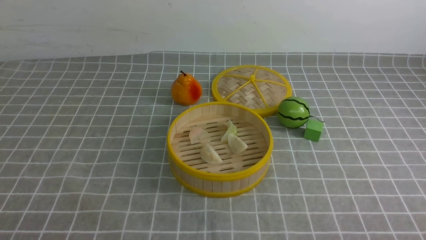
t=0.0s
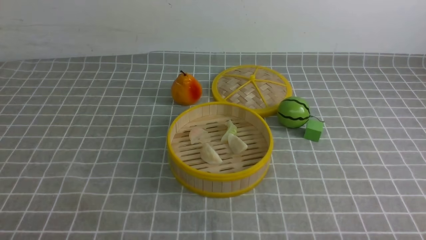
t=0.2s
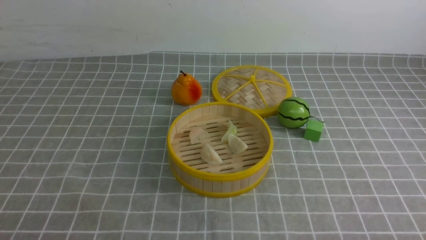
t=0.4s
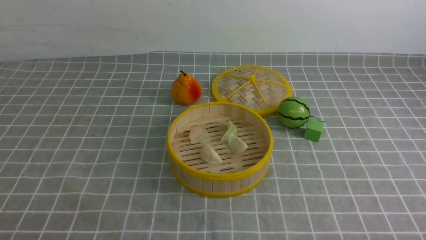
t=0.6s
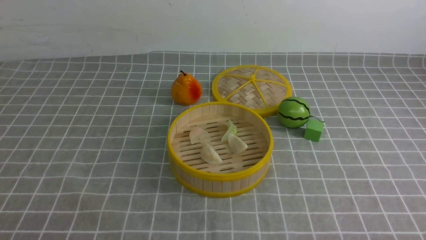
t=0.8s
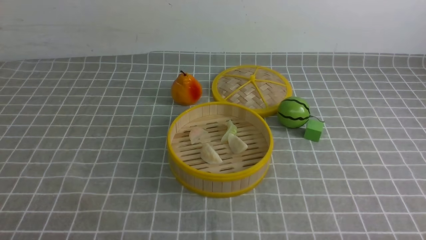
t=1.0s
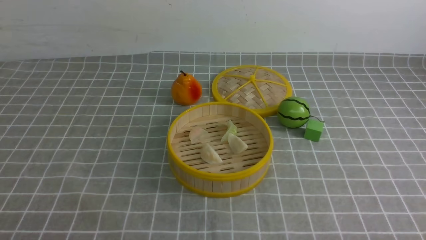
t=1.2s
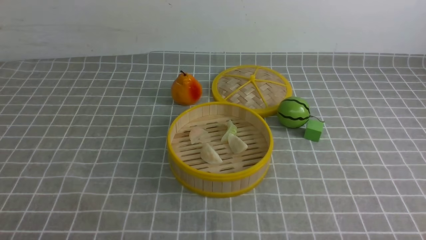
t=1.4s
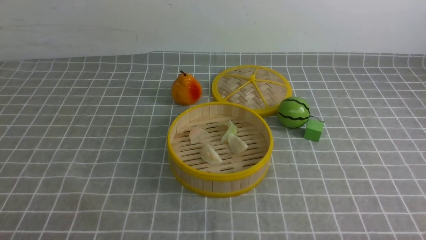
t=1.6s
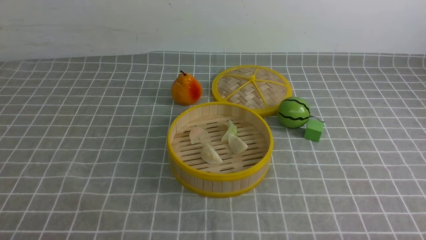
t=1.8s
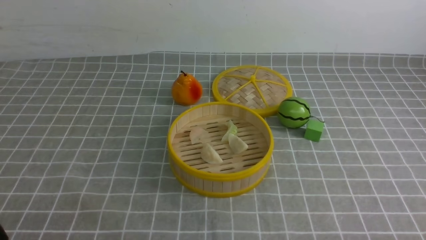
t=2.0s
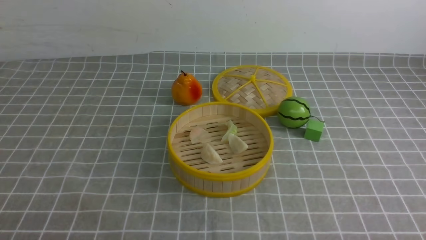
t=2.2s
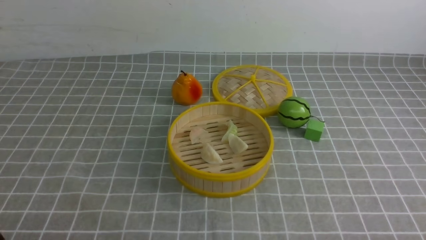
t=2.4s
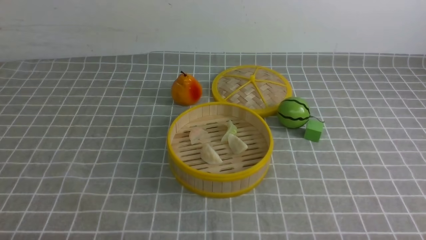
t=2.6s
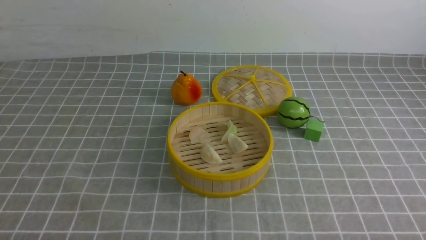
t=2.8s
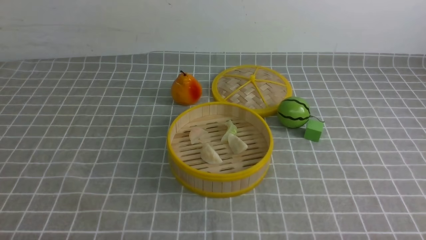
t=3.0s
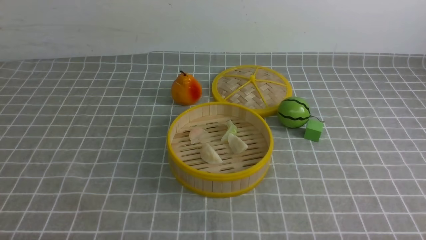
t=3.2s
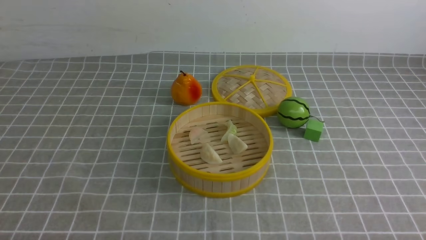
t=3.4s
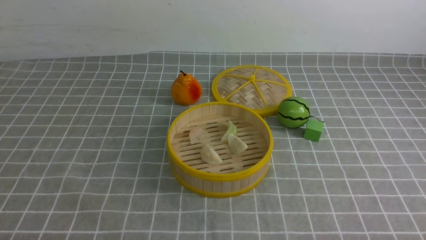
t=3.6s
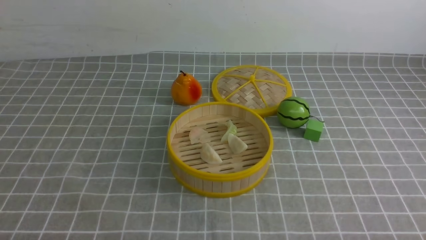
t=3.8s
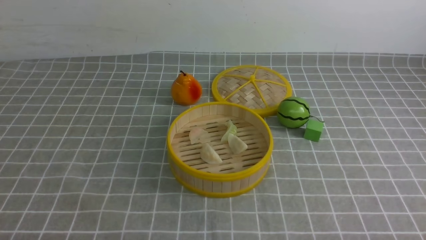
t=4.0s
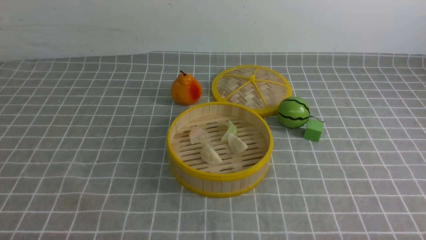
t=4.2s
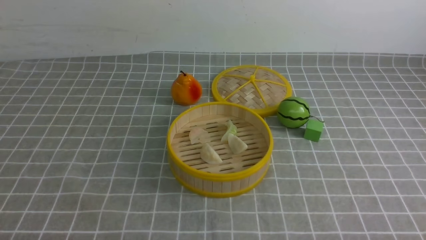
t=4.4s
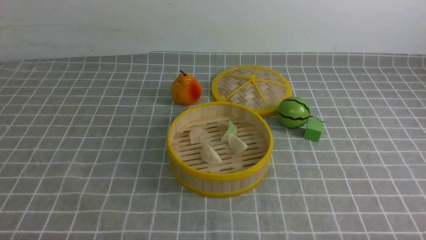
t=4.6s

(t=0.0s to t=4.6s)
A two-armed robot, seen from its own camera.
Task of the whole recording: put the dumplings into the steamer on the table with the grey tablecloth.
t=3.0s - t=4.6s: Neither gripper changes place.

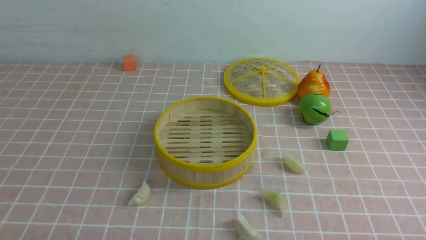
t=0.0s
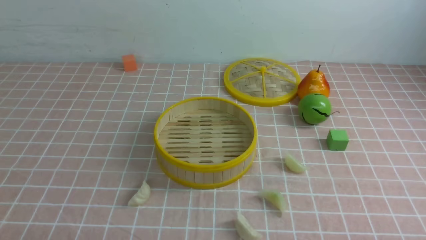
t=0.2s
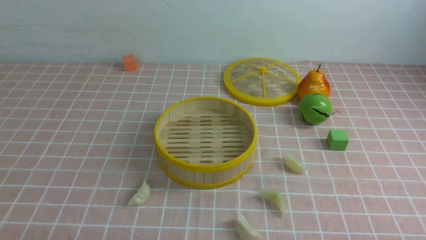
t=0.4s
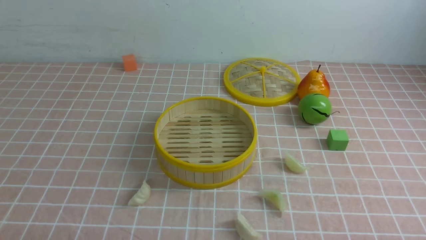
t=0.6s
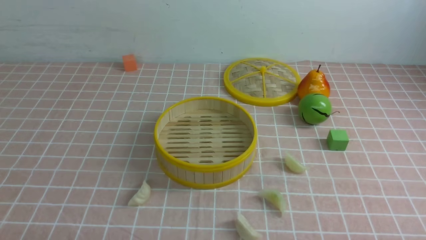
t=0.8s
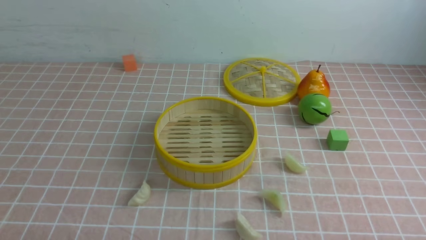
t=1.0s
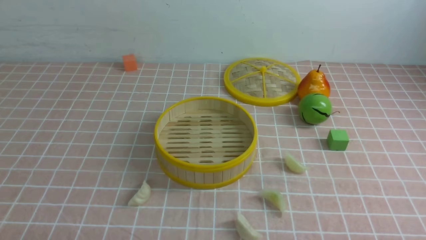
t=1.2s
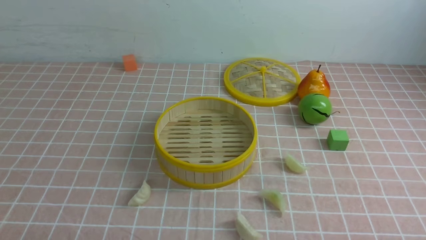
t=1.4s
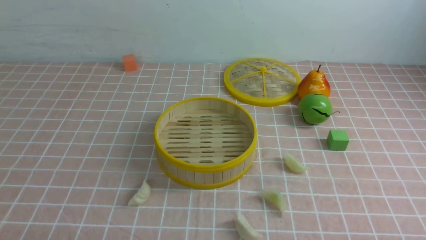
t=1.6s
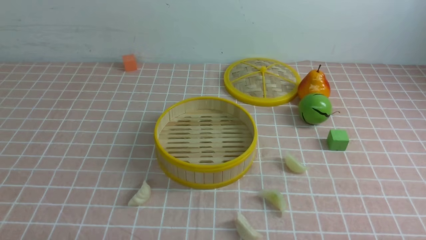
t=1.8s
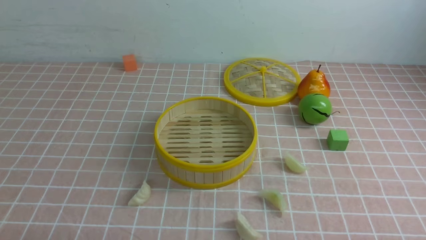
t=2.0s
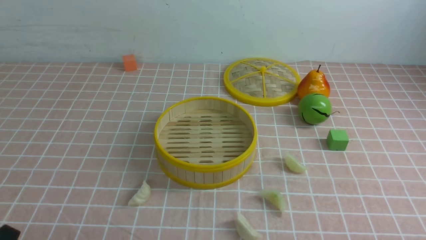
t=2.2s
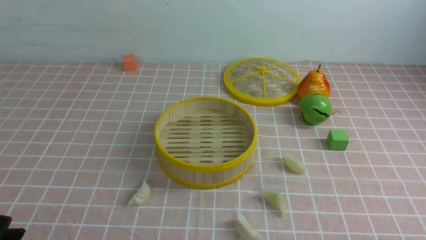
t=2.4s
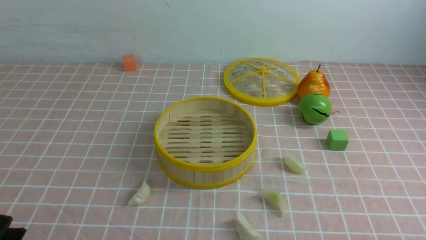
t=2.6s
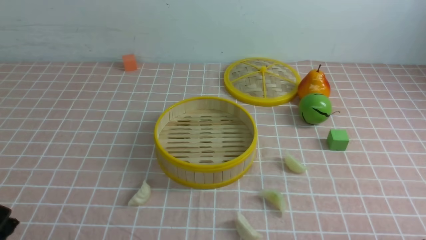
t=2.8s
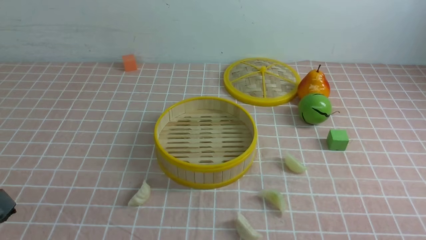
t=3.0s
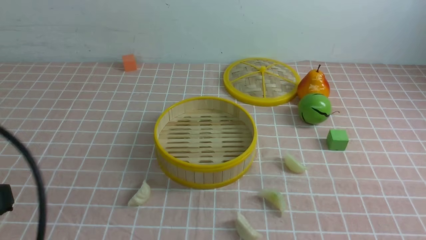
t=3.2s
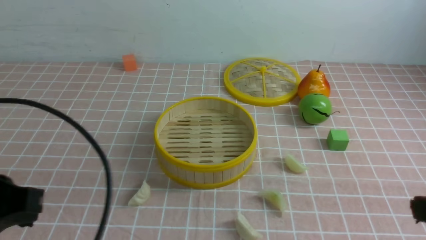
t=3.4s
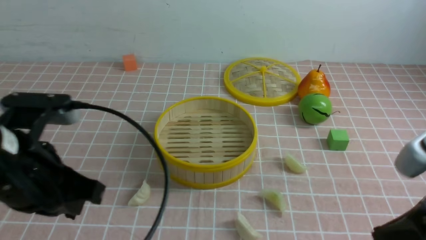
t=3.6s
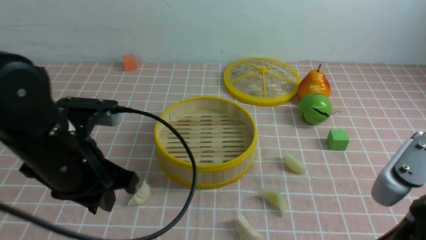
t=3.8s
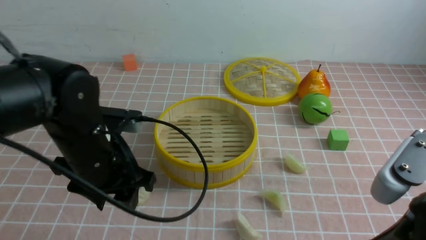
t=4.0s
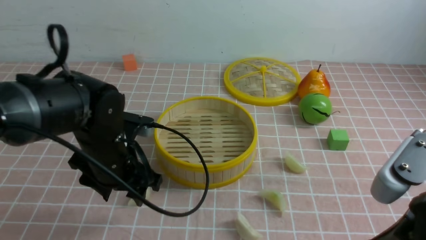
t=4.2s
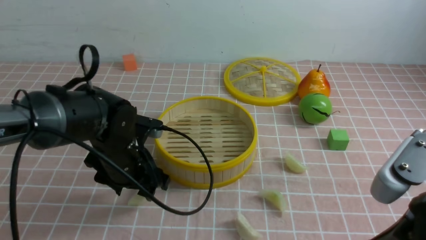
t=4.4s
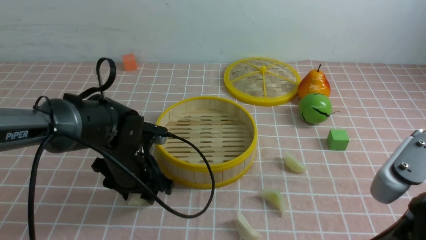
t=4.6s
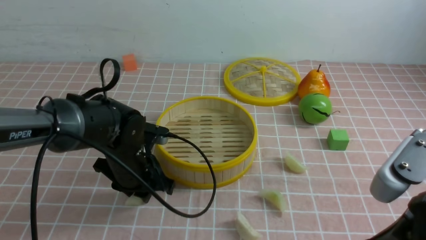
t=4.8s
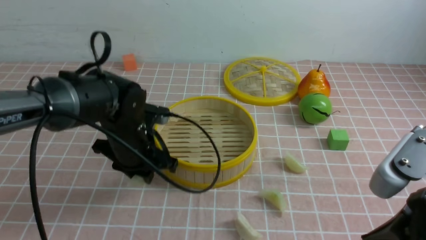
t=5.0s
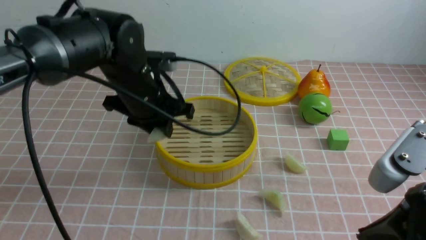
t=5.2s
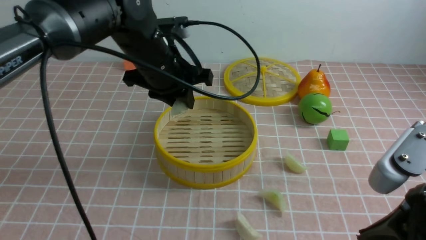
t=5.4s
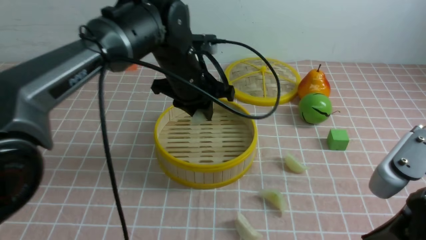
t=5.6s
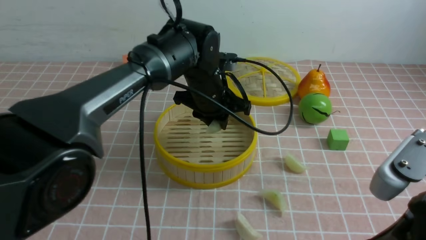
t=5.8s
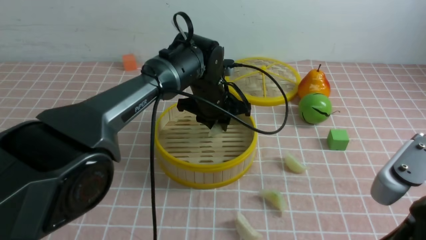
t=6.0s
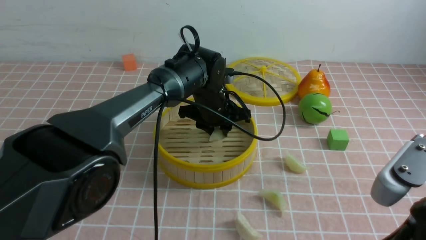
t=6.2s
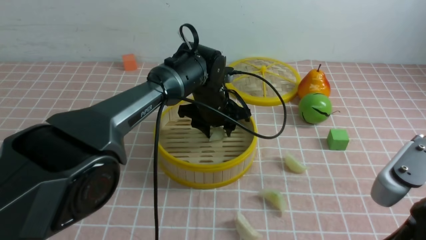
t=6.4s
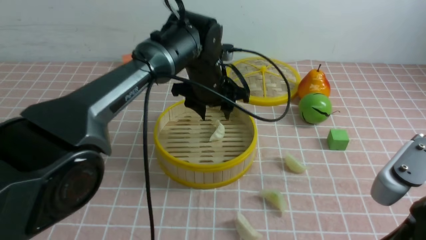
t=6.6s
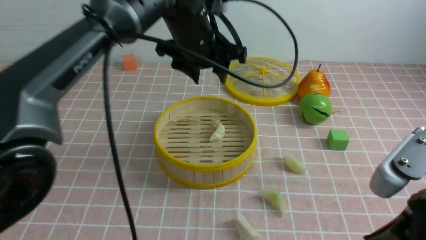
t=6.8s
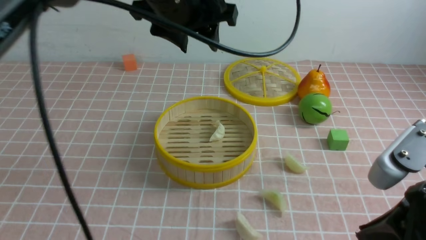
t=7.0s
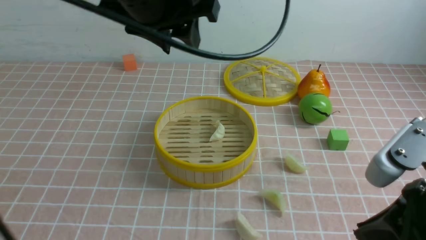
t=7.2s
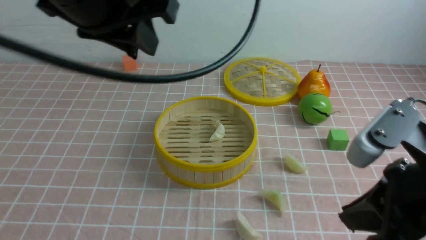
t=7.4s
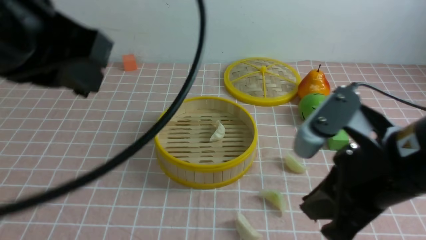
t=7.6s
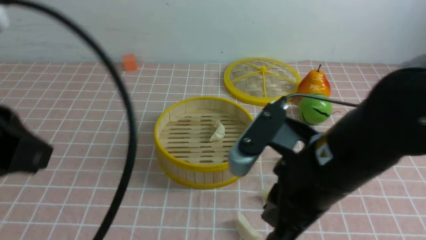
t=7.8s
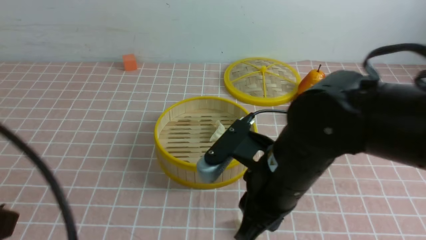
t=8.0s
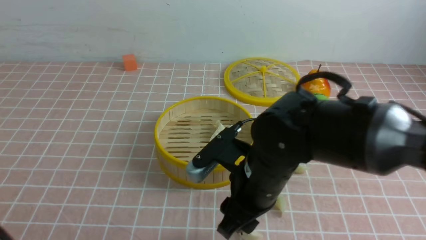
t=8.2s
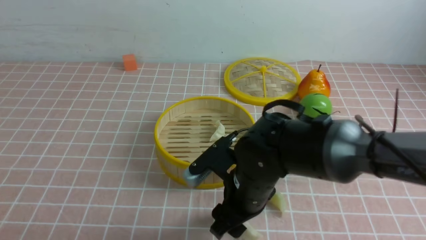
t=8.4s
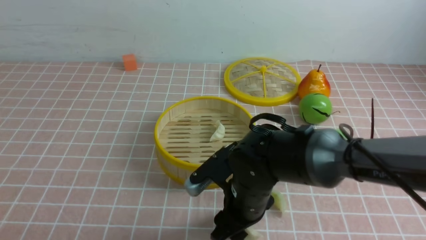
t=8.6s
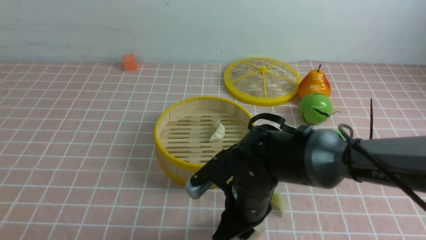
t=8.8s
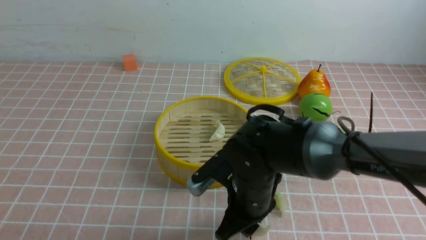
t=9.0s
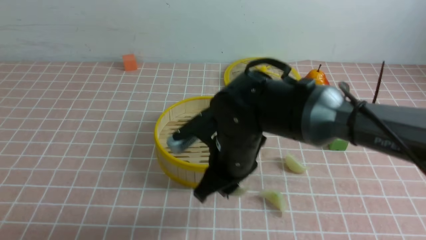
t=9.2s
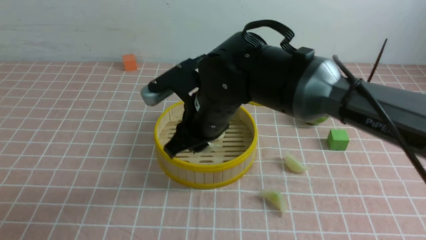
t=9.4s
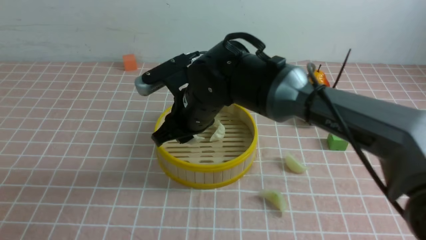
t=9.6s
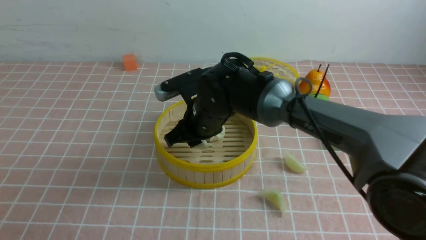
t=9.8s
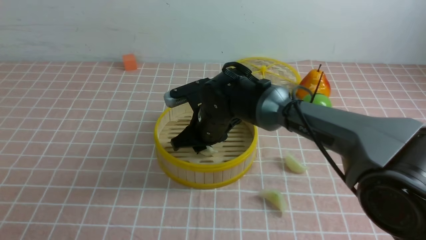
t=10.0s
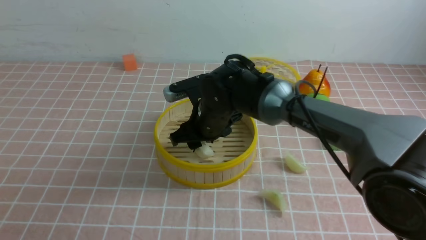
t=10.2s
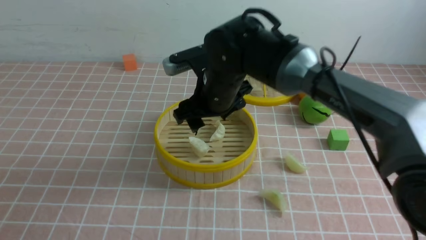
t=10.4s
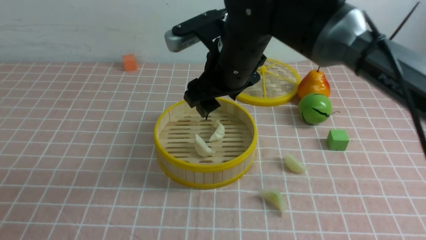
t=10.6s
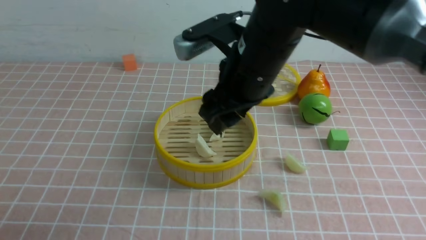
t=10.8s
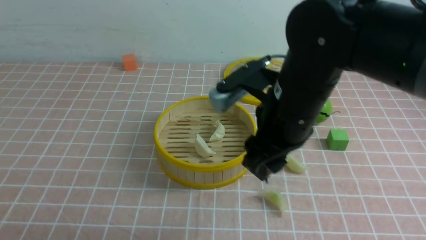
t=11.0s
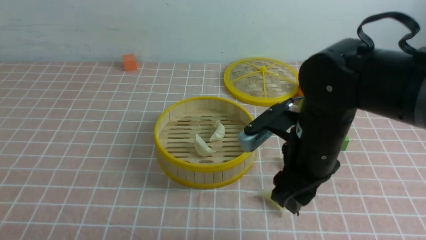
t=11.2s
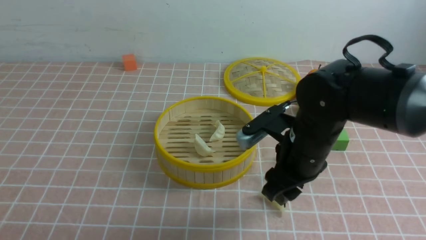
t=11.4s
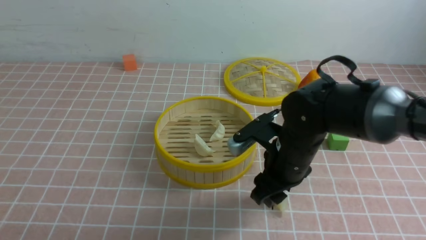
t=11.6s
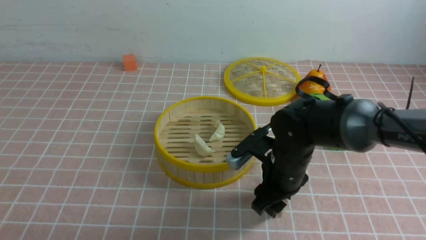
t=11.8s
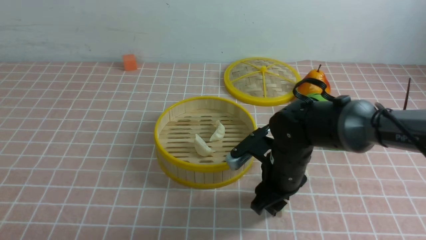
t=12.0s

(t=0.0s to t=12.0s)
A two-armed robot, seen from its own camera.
Task of the whole recording: put the dumplings into the steamer on the table with the pink tablecloth.
Step, t=0.0s - t=4.8s: use the left arm to grab a dumpling.
Step, t=5.0s - t=6.6s: use the left arm to put the dumpling into the steamer.
Step, t=6.8s - t=9.0s: use the right arm to grab a dumpling.
Step, t=9.2s - t=10.4s: use the right arm to put the dumpling into the steamer.
t=0.0s - t=1.6s: Neither gripper changes place.
t=3.0s - t=4.4s: The left gripper heads forward, downward and to the right, covering roughly 30 cm, and opens its fingers, while the right gripper moves forward, to the left and upward, approximately 10 cm.
t=4.4s - t=6.0s: The left gripper moves to the right and forward, approximately 20 cm, and closes up.
t=6.0s - t=7.6s: The right gripper travels to the left and forward by about 10 cm, while the left gripper shifts about 40 cm backward, upward and to the left, and opens and closes again.
t=7.6s - t=9.0s: The right gripper goes approximately 20 cm downward, to the left and forward, and opens and closes again; the left gripper is displaced downward, backward and to the left by about 20 cm.
t=9.0s - t=10.4s: The right gripper travels forward and upward by some 15 cm, and opens.
t=10.4s - t=12.0s: The right gripper goes about 15 cm downward, to the right and backward, and closes up.
